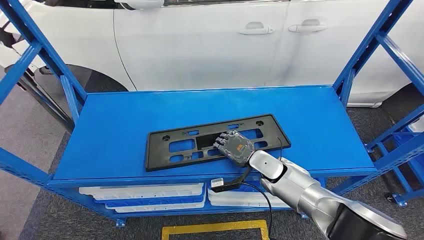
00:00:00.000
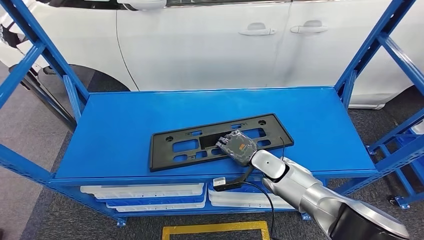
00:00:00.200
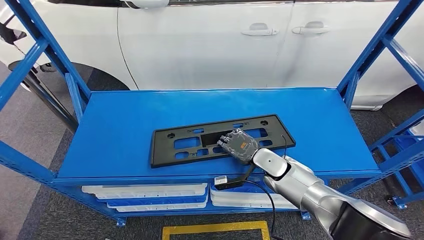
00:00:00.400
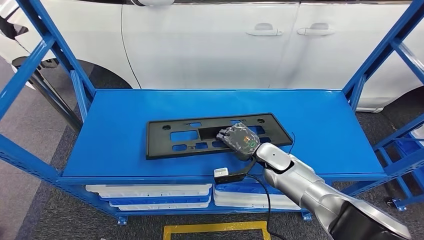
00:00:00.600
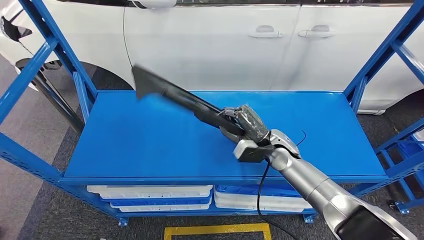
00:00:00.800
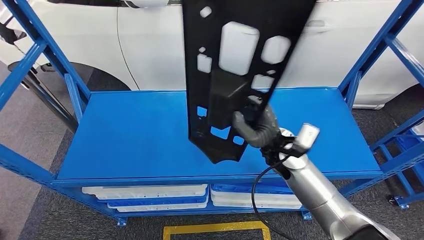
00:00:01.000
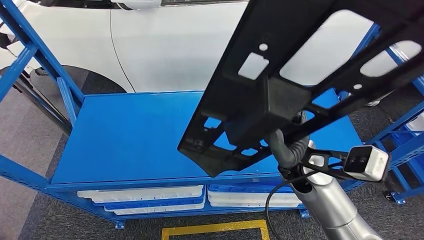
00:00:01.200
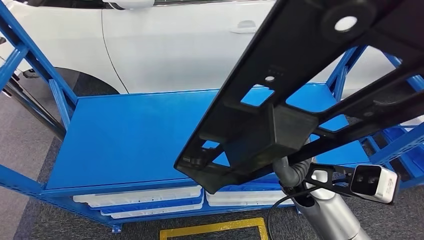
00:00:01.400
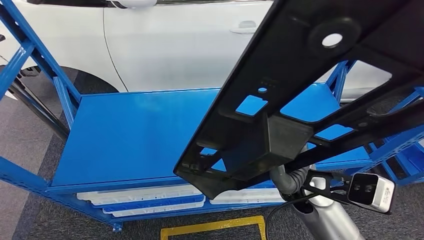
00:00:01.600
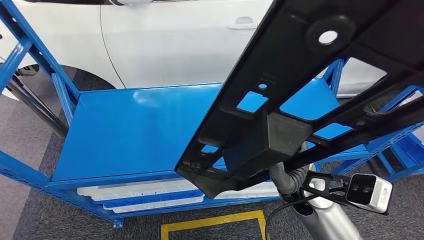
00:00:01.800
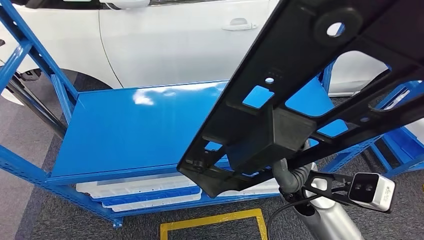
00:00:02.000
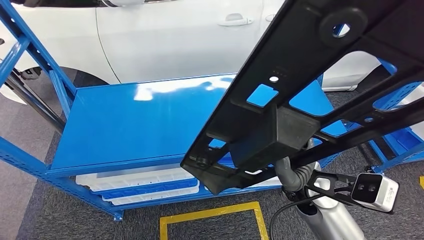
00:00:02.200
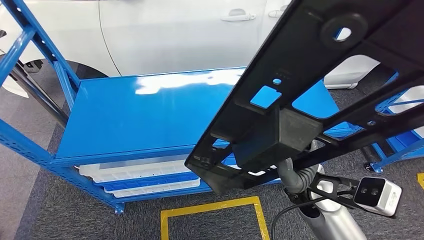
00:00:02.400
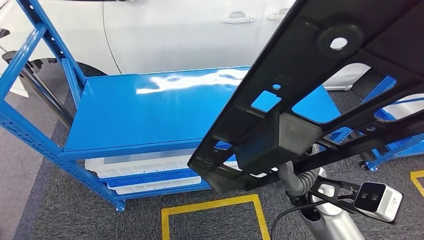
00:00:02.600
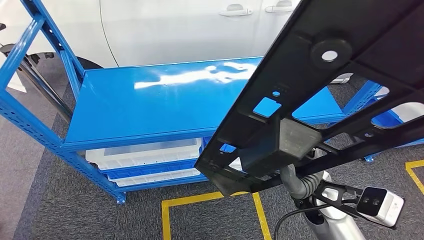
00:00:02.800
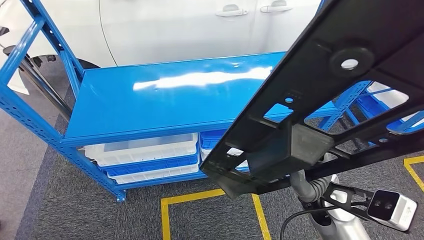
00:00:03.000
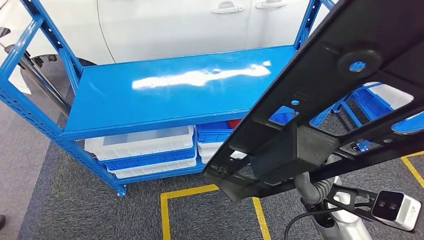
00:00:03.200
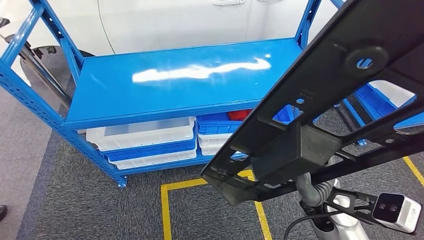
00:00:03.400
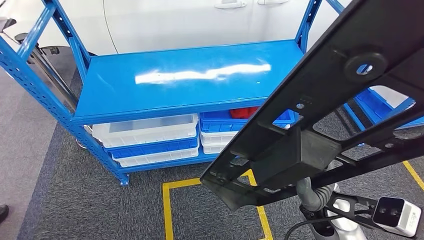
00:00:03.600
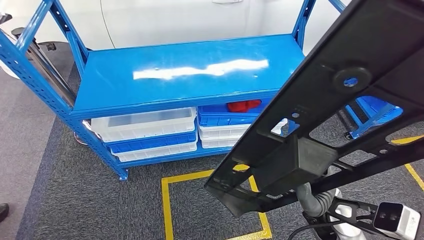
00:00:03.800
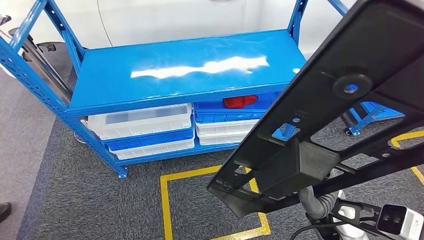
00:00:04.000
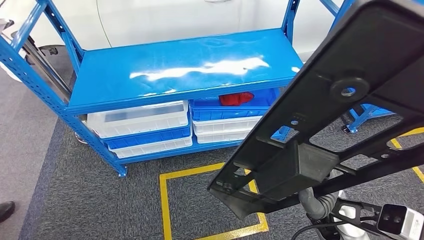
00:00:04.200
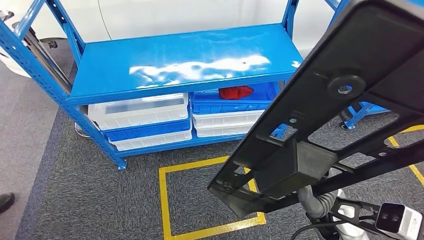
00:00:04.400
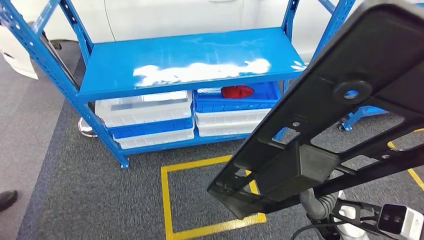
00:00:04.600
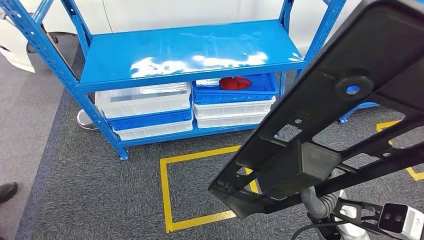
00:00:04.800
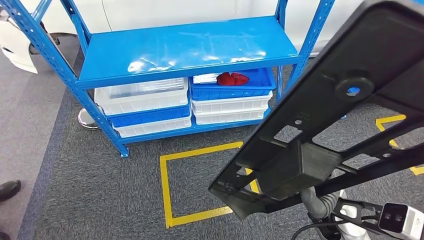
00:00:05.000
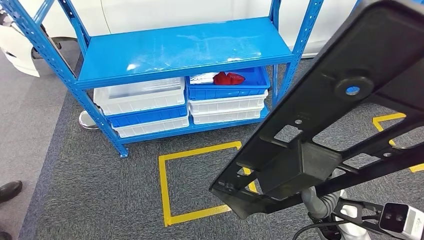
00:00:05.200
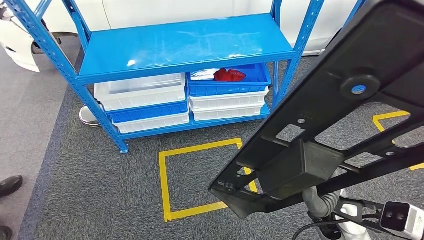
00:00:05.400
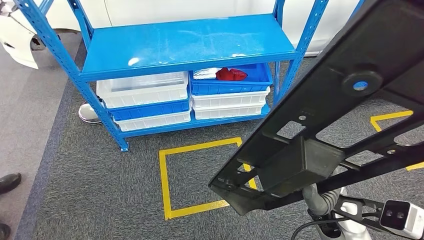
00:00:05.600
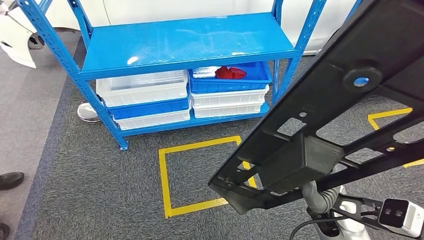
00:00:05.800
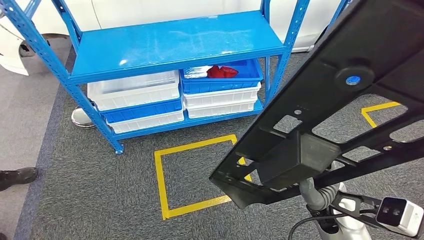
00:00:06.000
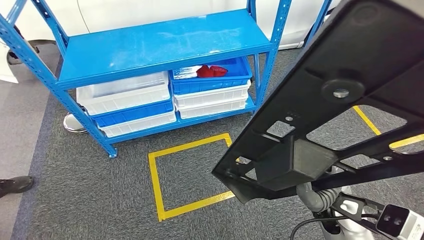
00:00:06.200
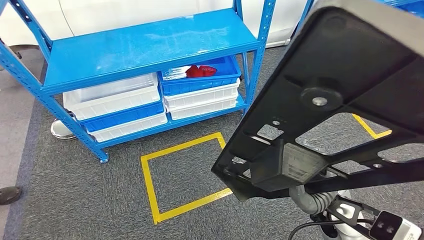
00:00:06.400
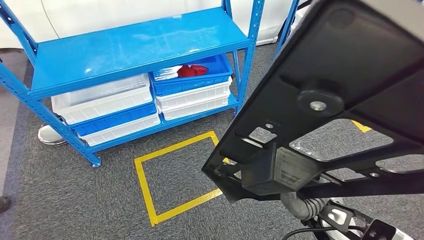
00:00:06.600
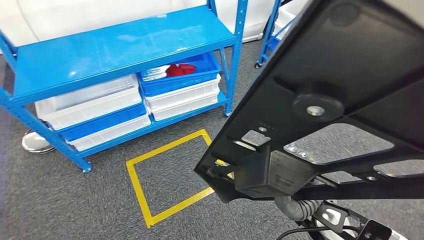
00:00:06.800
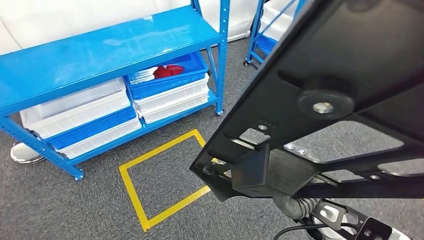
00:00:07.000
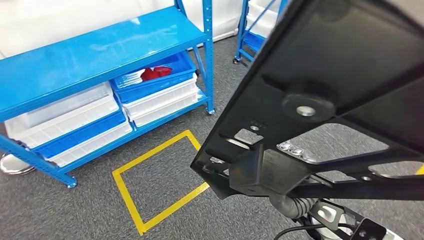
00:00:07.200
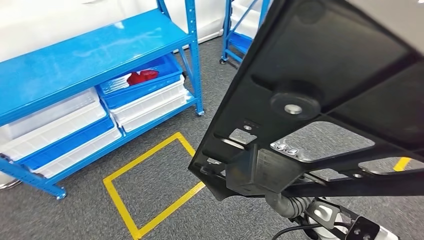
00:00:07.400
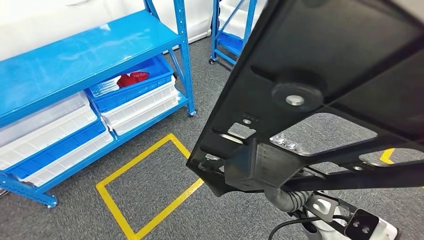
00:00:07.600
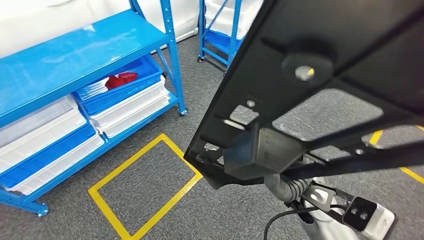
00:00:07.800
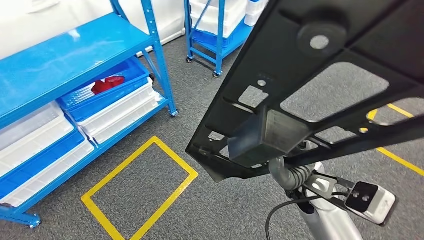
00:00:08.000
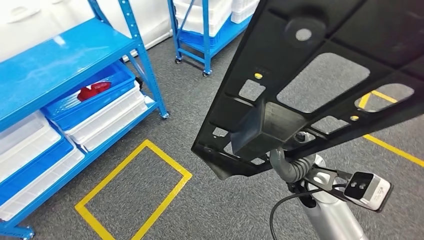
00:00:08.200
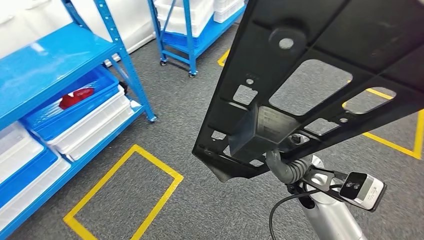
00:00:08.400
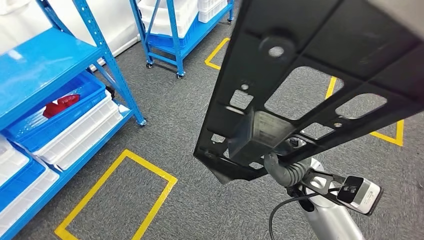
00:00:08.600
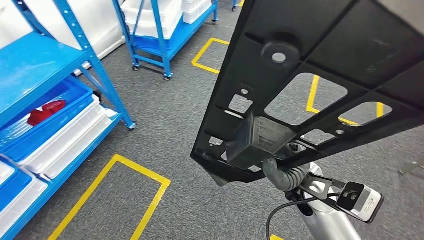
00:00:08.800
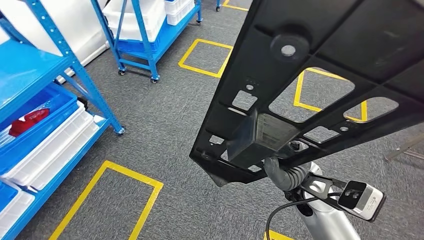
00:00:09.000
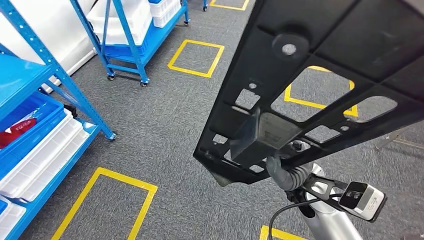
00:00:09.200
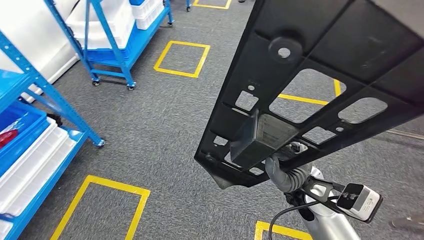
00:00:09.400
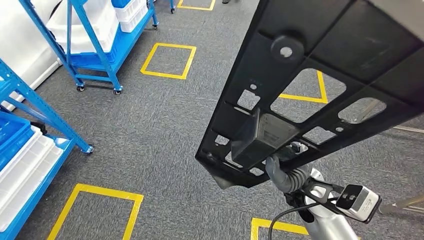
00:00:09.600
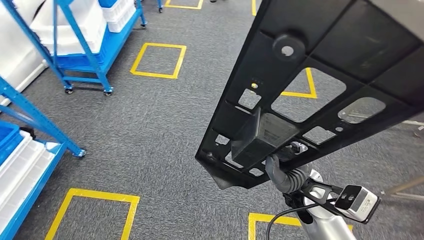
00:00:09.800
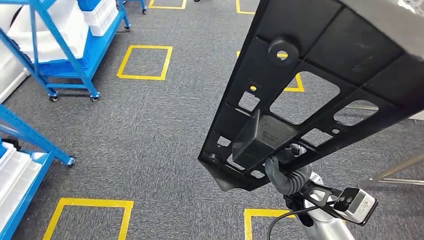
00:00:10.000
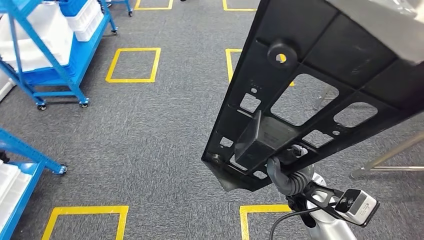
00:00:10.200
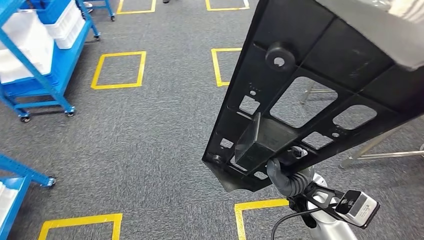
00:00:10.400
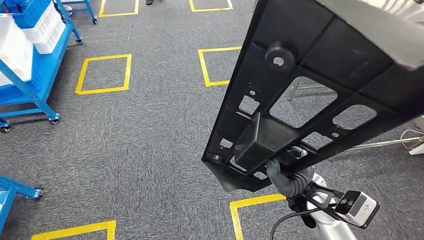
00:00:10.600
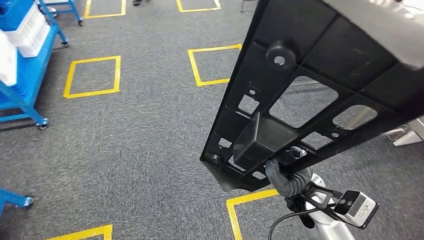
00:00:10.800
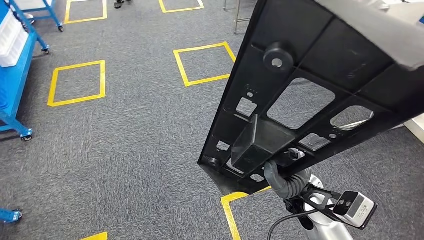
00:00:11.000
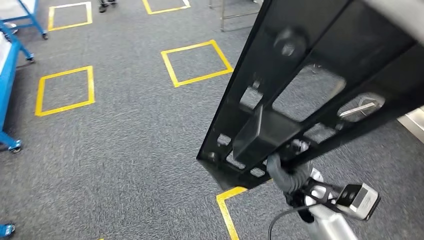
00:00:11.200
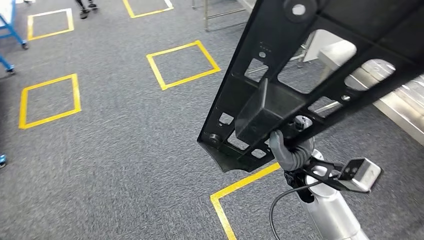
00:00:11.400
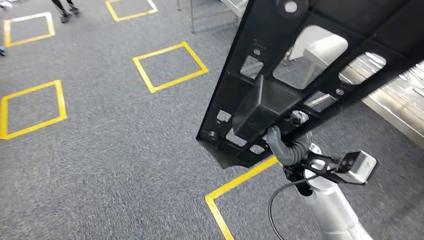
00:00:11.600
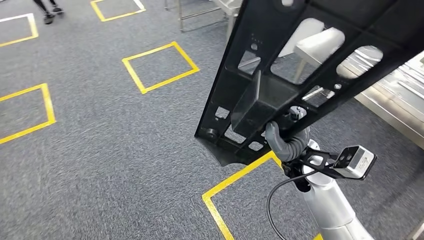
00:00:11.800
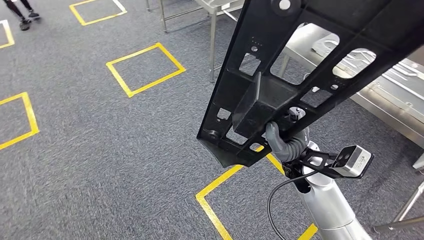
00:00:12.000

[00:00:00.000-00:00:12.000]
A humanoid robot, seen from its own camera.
Step, 00:00:00.000 to 00:00:03.400: Pick up the large material from the shelf.

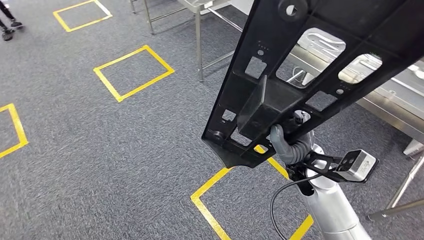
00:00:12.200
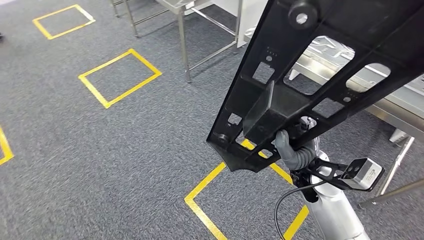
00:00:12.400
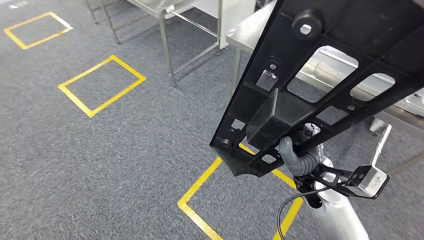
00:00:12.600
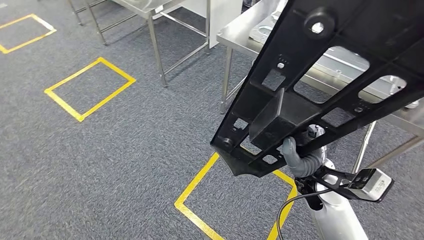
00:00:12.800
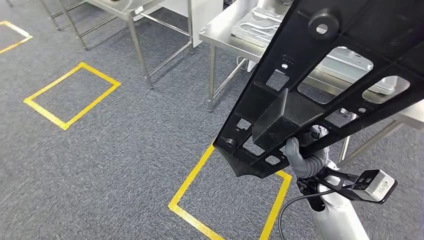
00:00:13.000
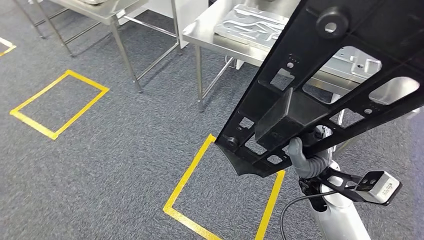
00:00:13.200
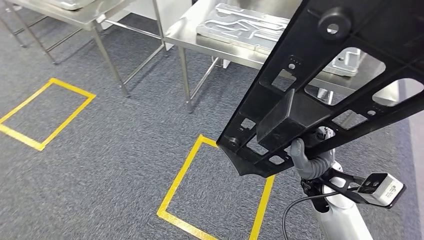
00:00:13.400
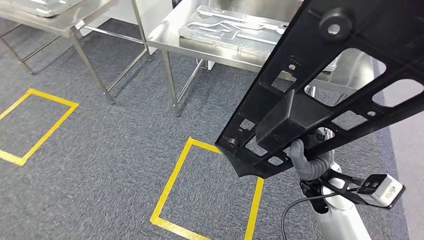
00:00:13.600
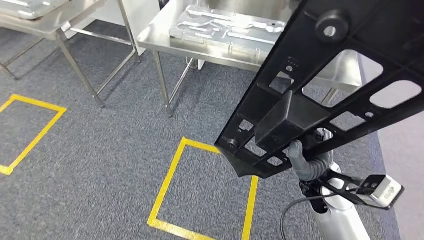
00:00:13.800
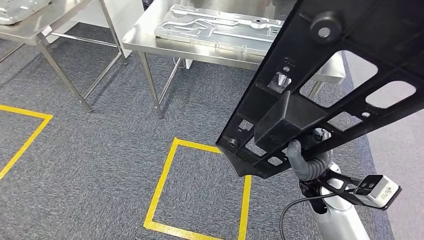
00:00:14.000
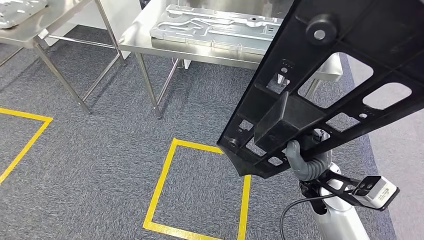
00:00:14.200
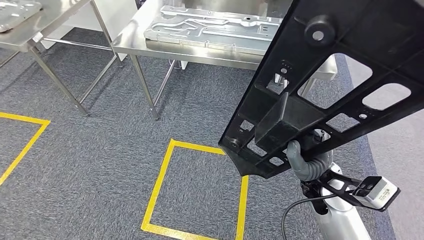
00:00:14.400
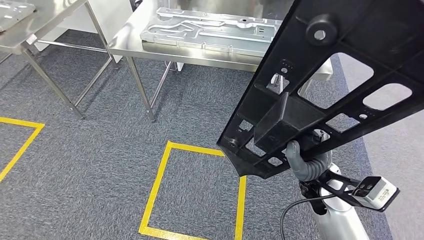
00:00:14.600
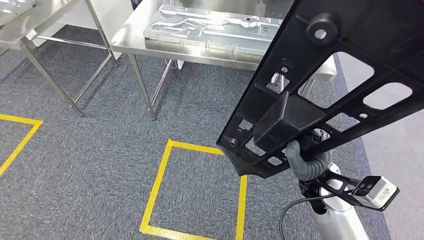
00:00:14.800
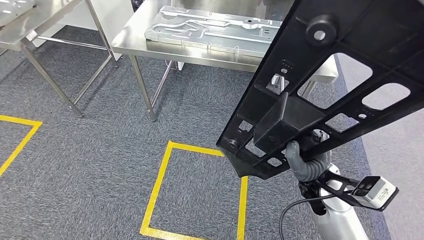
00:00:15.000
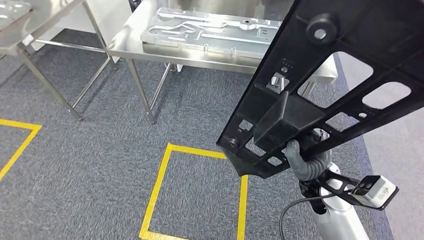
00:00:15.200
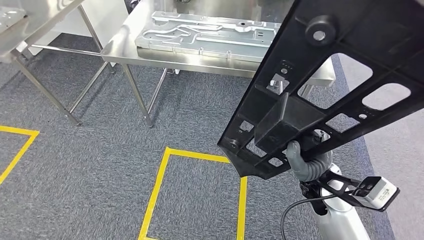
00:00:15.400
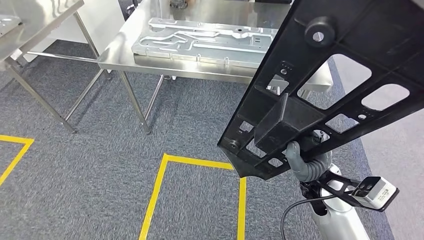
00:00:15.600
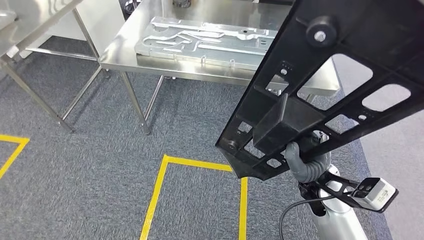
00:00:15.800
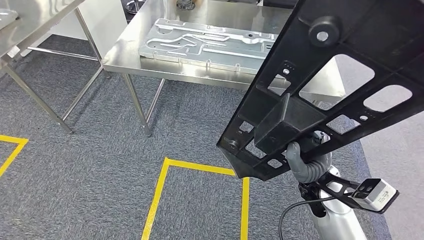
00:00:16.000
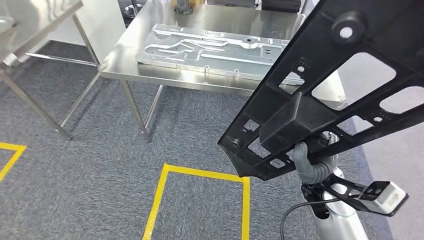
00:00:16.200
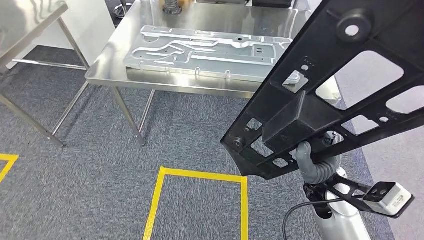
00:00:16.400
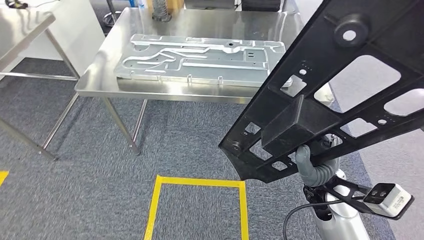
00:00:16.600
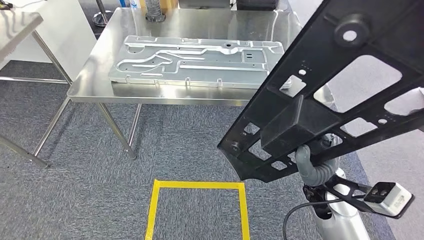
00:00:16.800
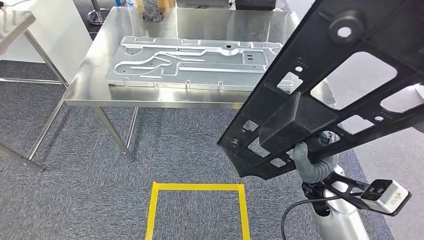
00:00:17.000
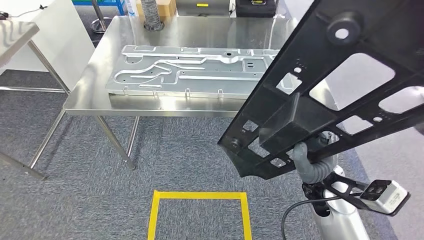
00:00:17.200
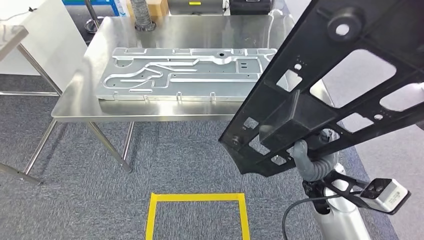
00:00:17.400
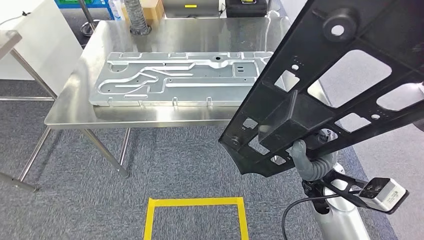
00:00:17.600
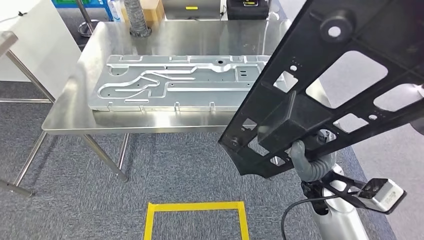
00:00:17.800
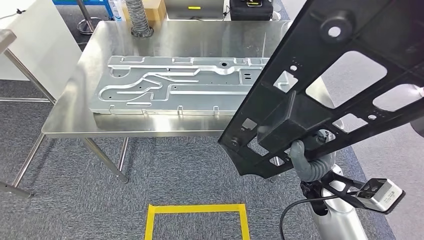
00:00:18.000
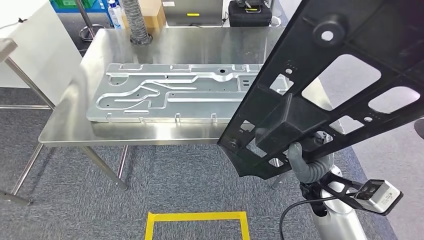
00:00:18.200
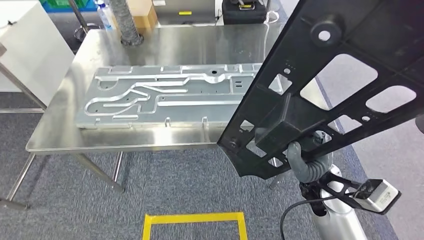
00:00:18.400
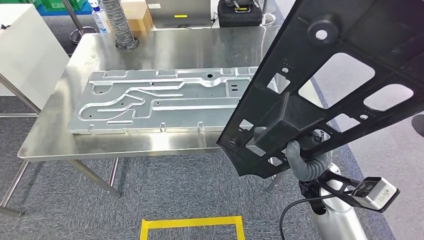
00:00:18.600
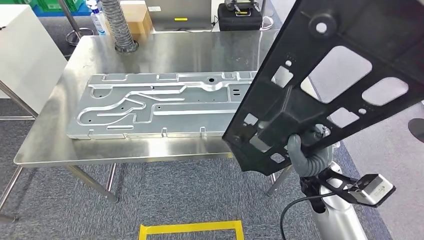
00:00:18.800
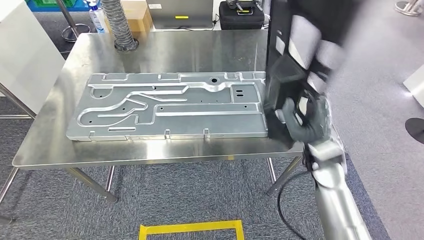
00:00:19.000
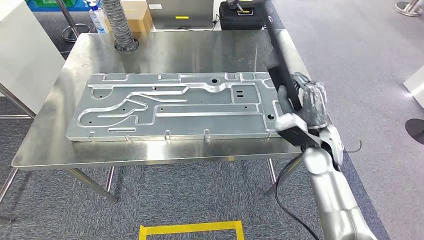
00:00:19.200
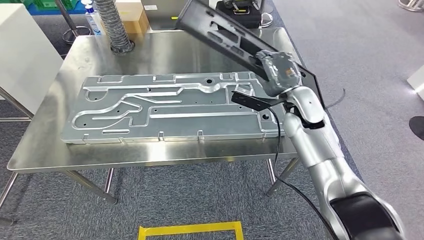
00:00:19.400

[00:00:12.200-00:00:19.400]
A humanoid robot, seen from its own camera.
Step, 00:00:12.200 to 00:00:18.200: Move the large material to the workbench.
